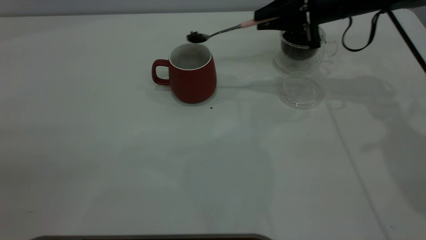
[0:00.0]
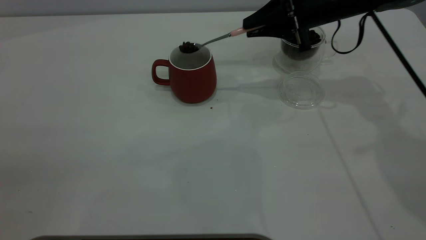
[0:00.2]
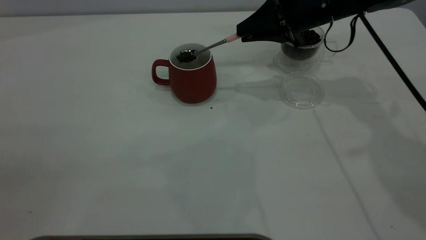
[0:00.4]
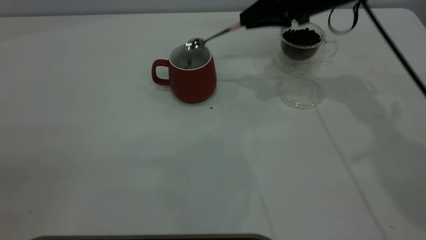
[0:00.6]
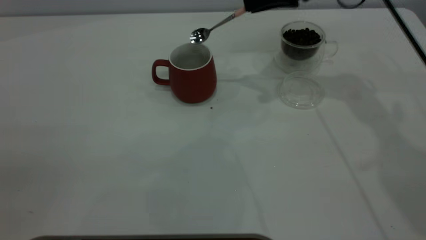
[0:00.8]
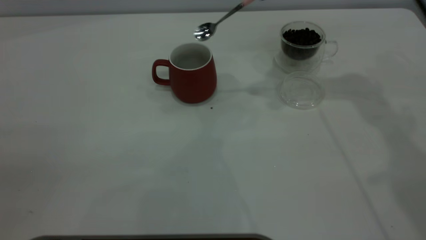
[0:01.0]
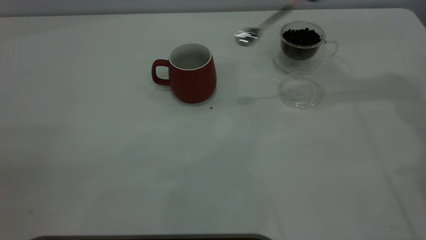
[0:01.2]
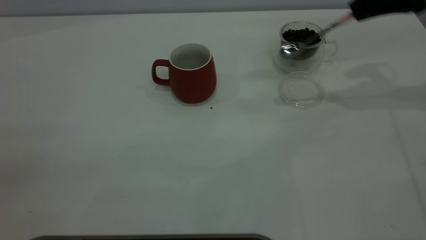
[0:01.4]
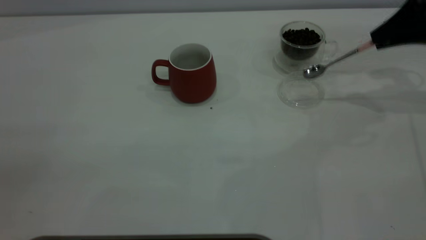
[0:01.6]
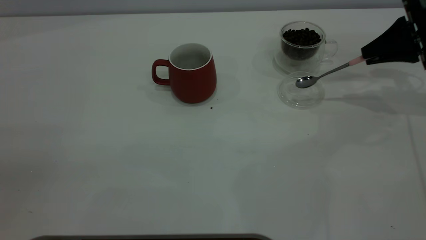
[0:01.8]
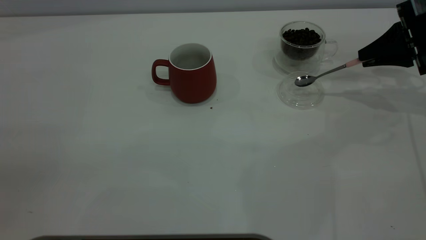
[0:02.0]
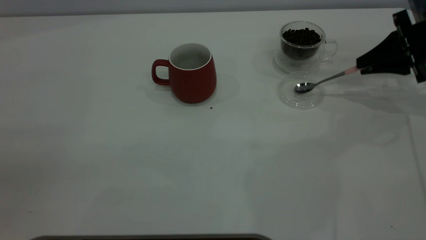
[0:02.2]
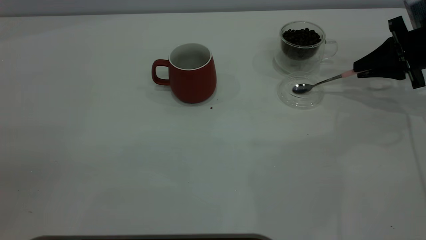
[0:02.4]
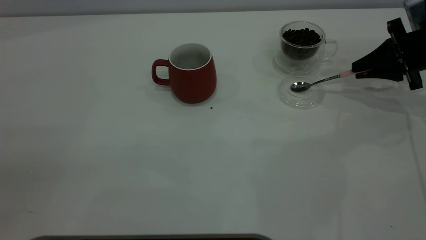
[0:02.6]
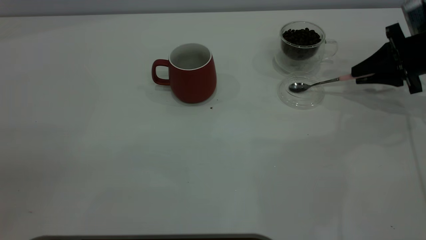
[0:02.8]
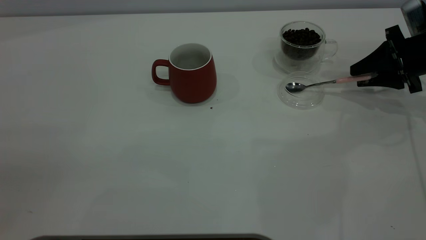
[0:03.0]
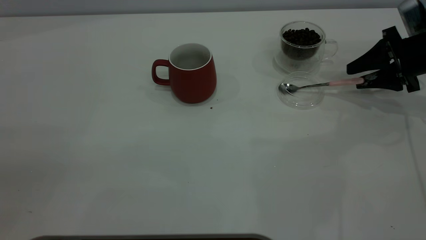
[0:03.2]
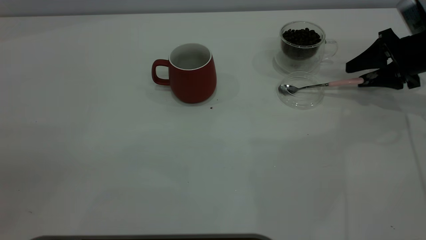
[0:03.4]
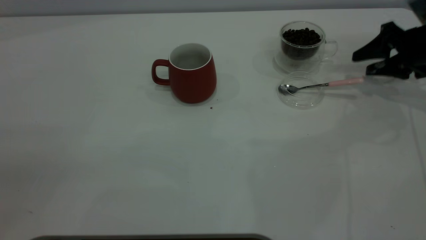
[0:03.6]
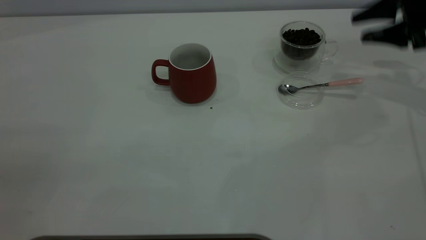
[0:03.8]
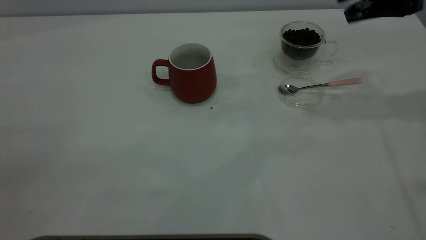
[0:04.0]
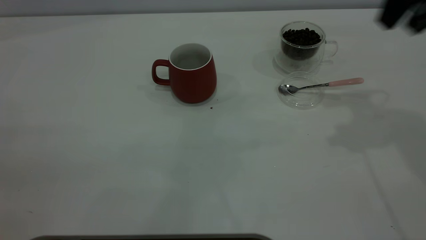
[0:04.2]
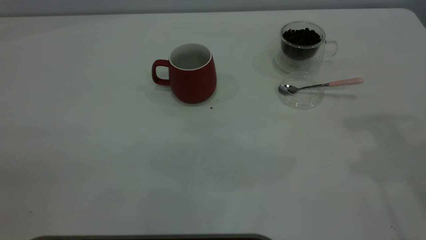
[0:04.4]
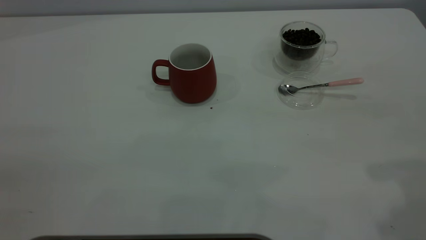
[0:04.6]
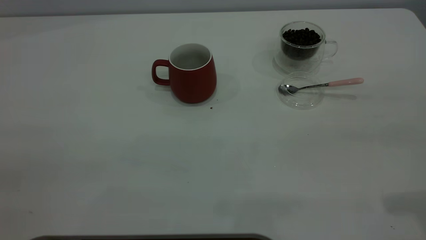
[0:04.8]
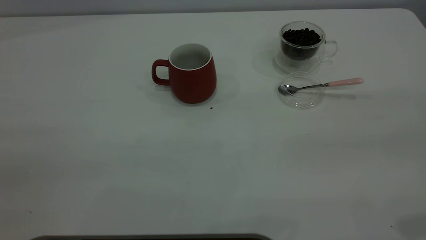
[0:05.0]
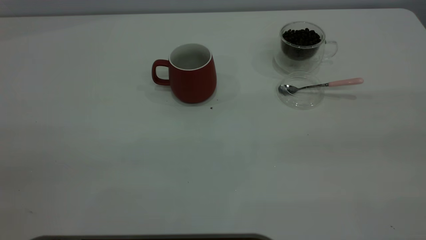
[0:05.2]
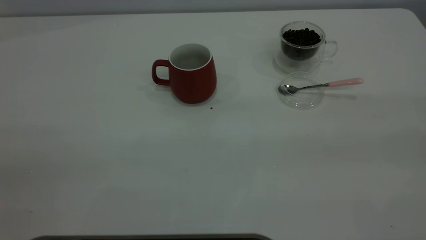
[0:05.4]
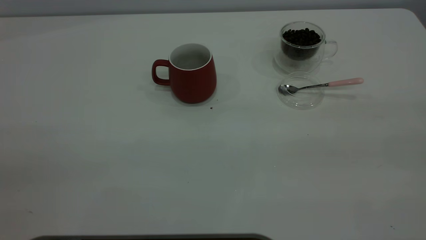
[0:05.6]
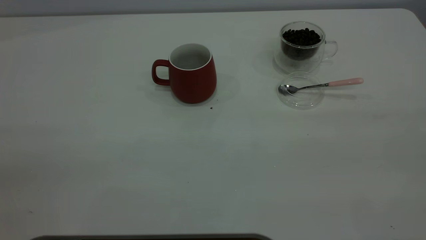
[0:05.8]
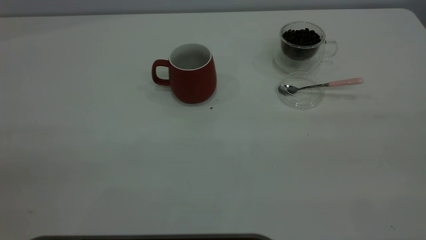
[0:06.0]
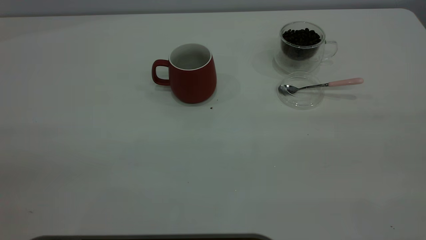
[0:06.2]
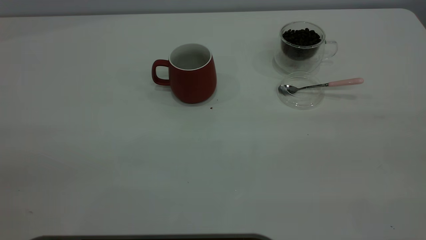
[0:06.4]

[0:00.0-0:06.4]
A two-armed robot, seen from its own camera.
Task of the whole recording: the left gripper place the red cup in the center of the table, the right gripper take the pink spoon from the cup lid and scoop out the coffee beans from the coffee cup and put them into the red cup, the right gripper put the spoon back into the cup lid.
Step, 0:01.0 to 0:03.6: Place the spoon back in its original place.
0:00.0 to 0:01.6: The right gripper moves to the right, approximately 15 cm.
0:01.6 to 0:03.2: The right gripper heads downward, covering approximately 10 cm, and opens its fingers.
0:03.2 to 0:04.8: The right gripper heads backward and upward, covering about 35 cm.
